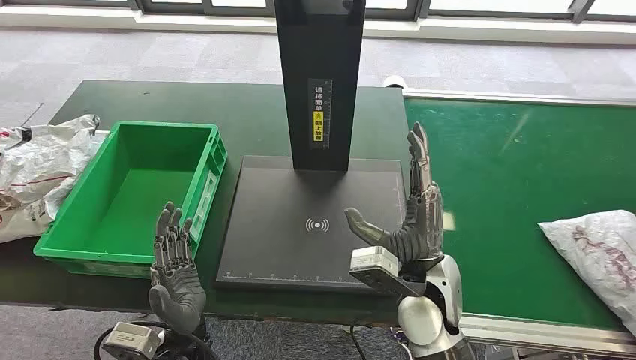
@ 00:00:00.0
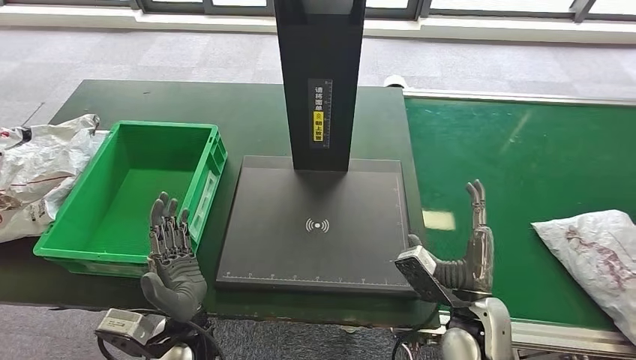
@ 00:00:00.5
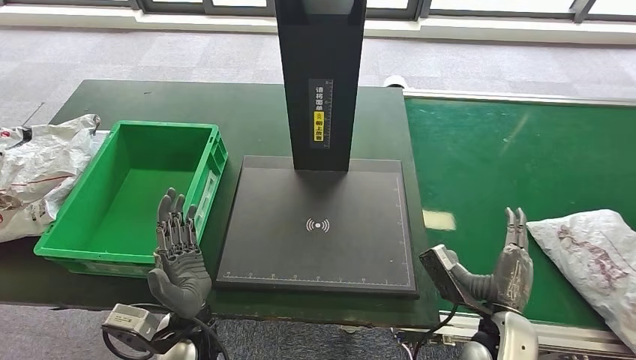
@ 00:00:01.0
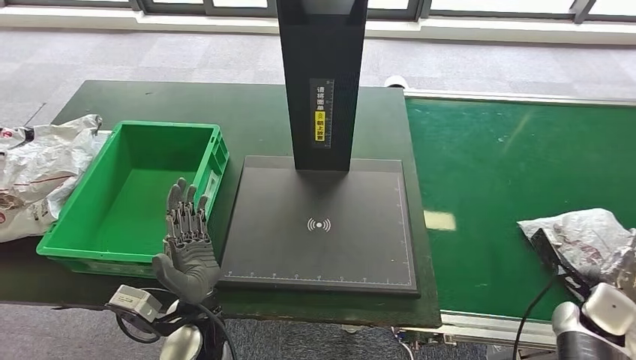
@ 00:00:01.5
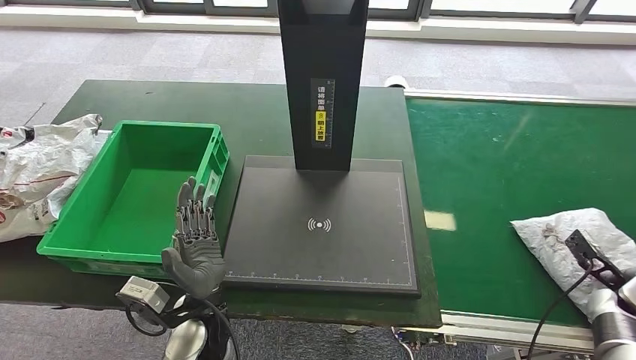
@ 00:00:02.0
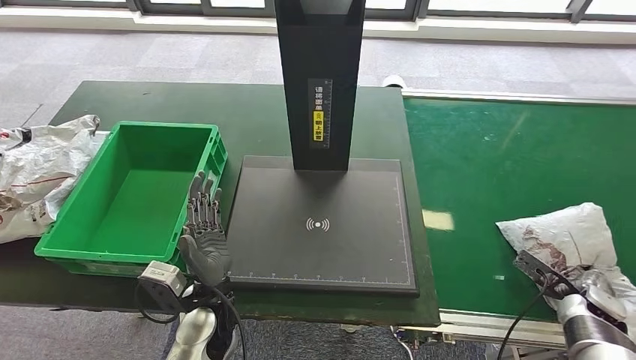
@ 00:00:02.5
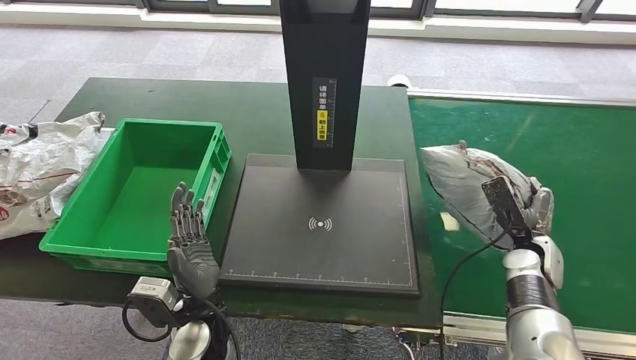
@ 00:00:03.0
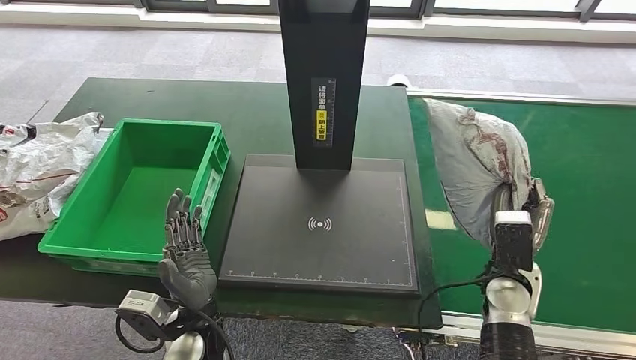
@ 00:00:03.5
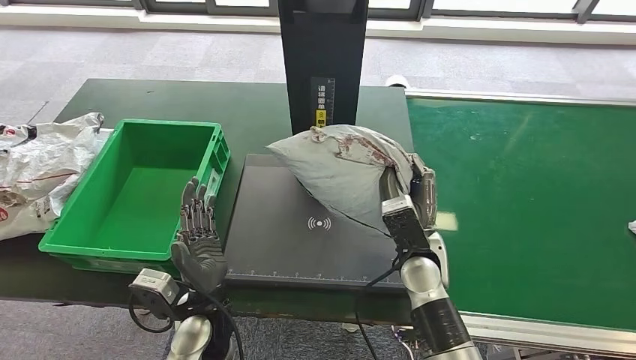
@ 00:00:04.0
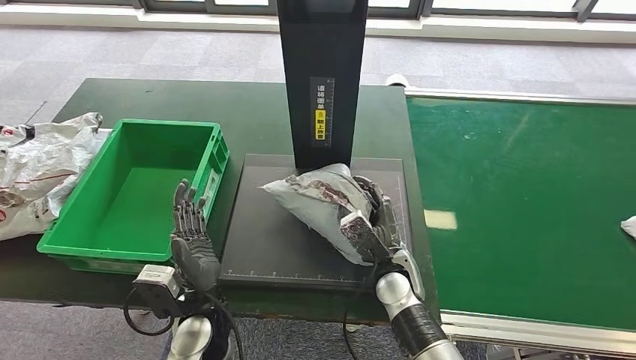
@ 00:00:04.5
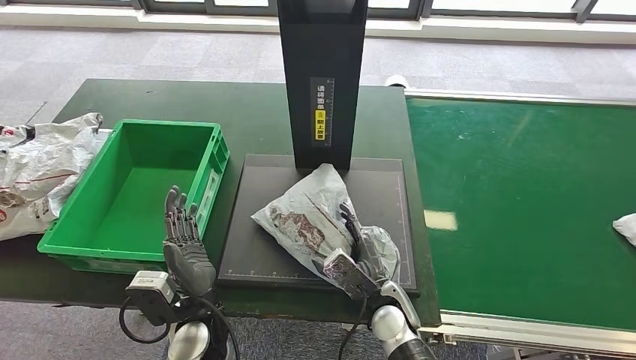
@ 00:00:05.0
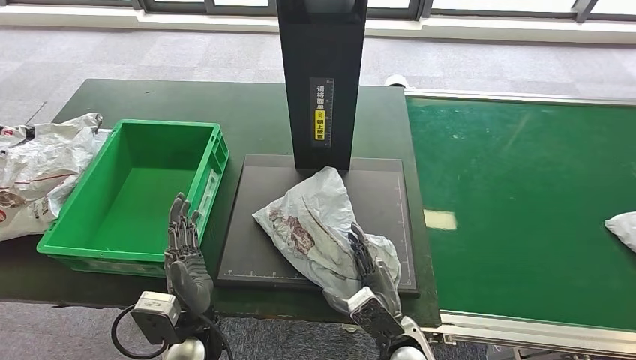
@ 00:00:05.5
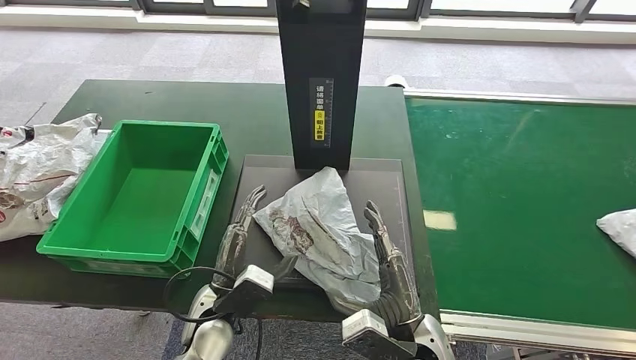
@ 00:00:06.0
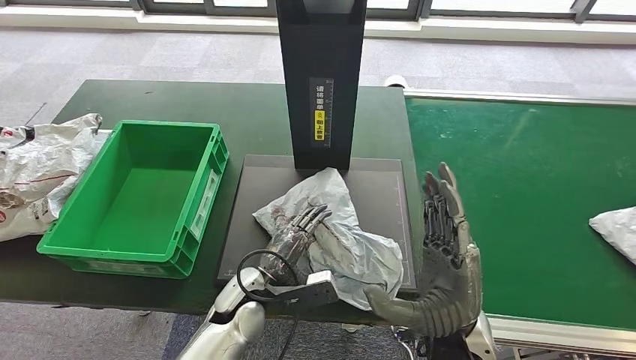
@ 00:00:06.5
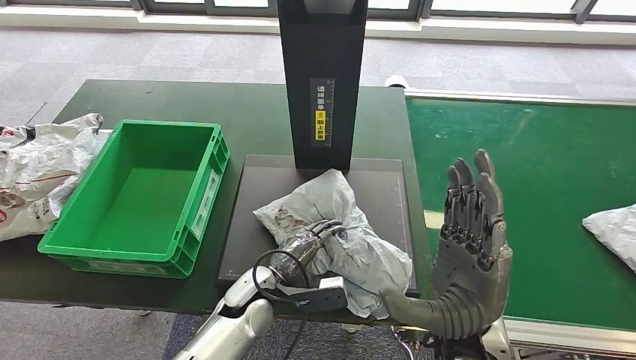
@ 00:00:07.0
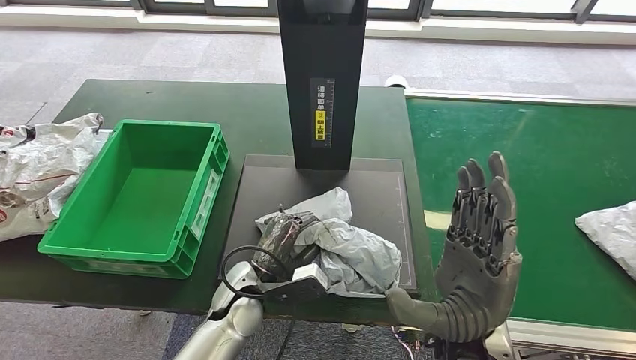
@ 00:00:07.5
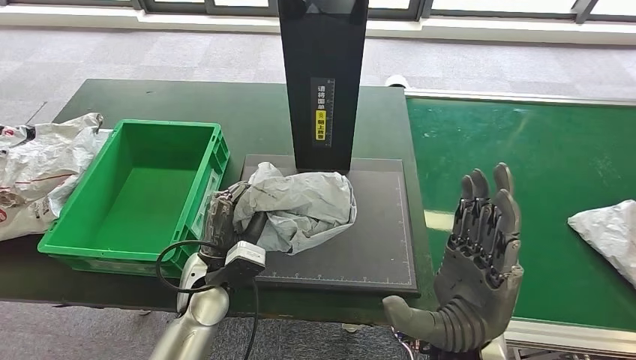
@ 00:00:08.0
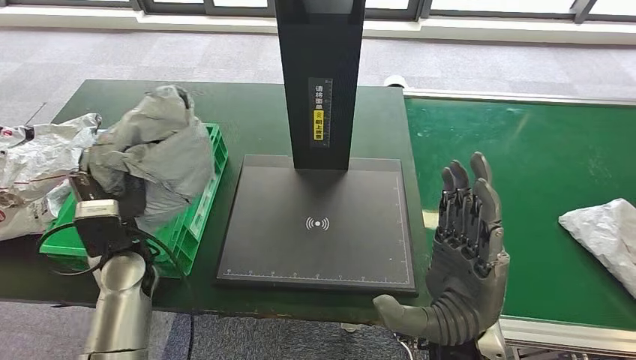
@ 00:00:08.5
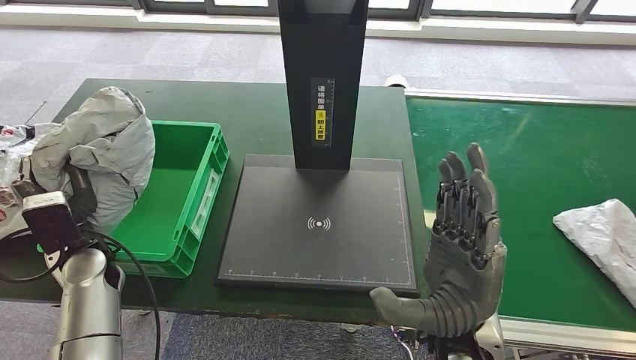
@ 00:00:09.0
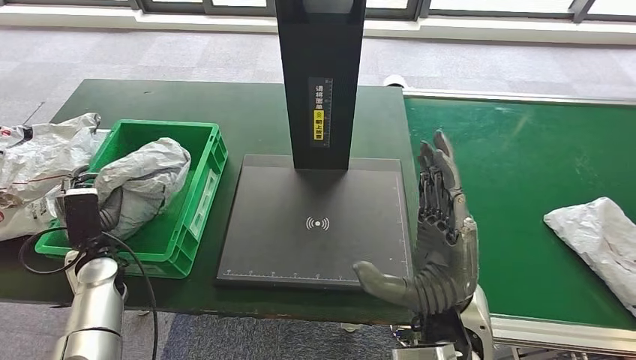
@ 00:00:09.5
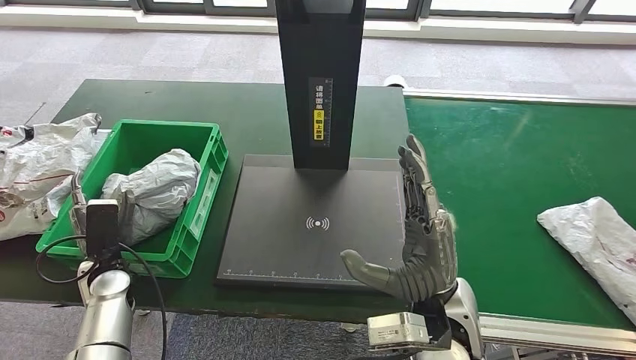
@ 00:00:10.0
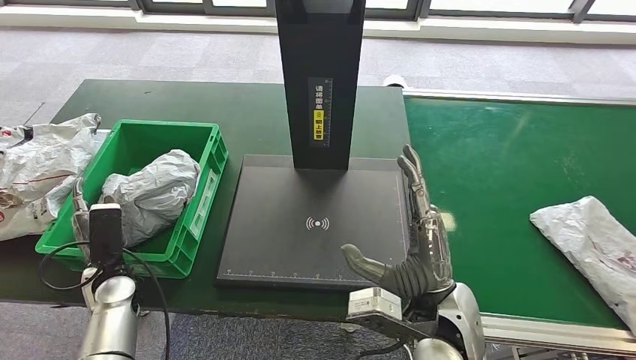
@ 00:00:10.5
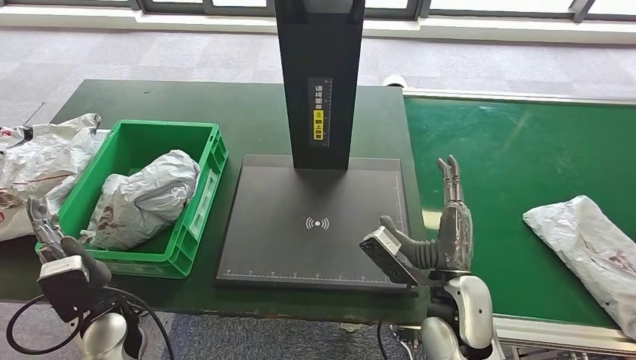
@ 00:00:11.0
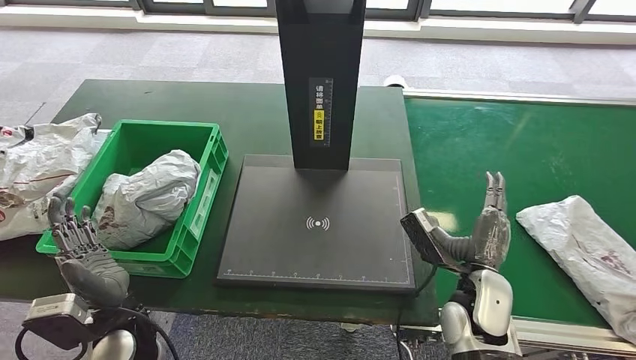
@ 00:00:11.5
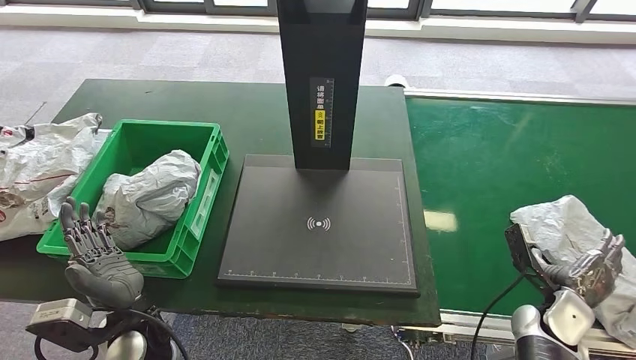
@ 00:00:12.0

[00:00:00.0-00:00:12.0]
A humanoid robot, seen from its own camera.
Step, 00:00:00.0 to 00:00:04.0: Take the parcel off the conveyor belt.
Step, 00:00:04.5 to 00:00:06.5: Place the parcel onto the inbound machine.
Step, 00:00:07.5 to 00:00:08.5: Pick up the parcel from the inbound machine.
Step, 00:00:09.0 to 00:00:11.0: Put the parcel inside the courier box.
00:00:02.0 to 00:00:04.0: The right hand travels to the left by some 35 cm.
00:00:04.0 to 00:00:06.0: The right hand moves backward, approximately 15 cm.
00:00:06.0 to 00:00:08.0: The right hand travels upward by about 10 cm, while the left hand shifts by about 5 cm.
00:00:10.0 to 00:00:12.0: The left hand is displaced to the right and backward by roughly 15 cm, while the right hand shifts some 30 cm to the right and downward.

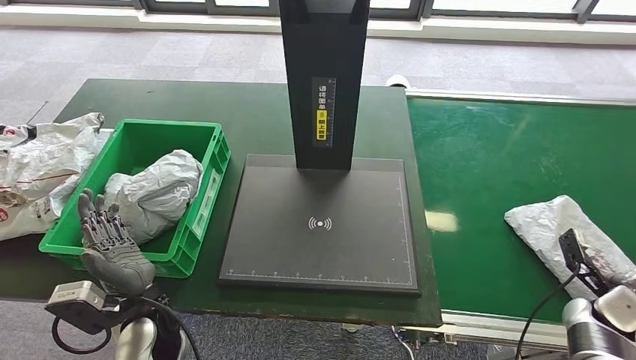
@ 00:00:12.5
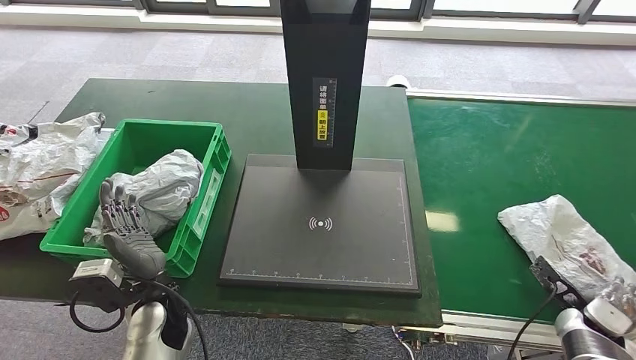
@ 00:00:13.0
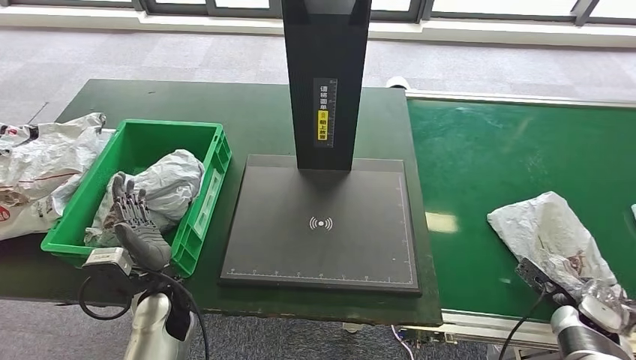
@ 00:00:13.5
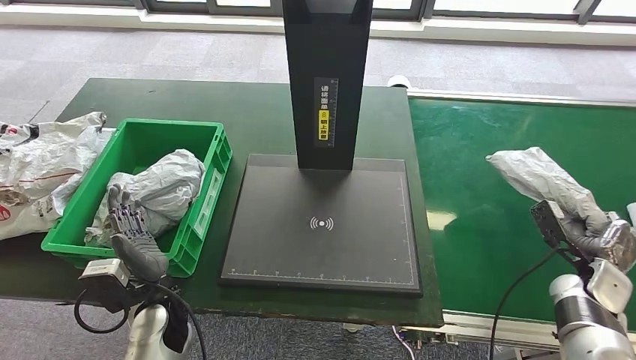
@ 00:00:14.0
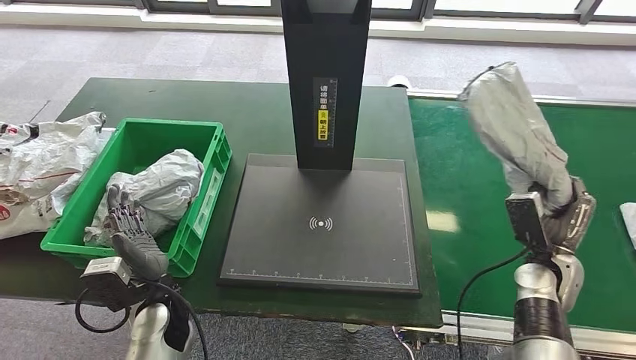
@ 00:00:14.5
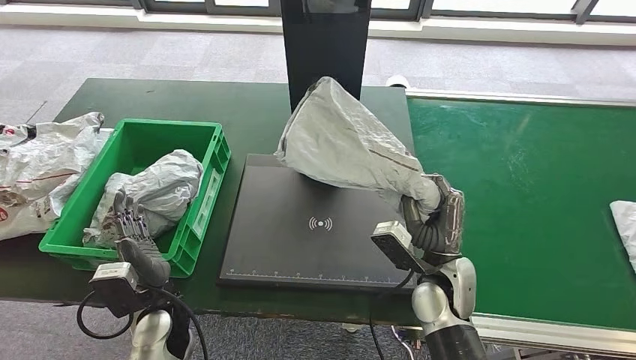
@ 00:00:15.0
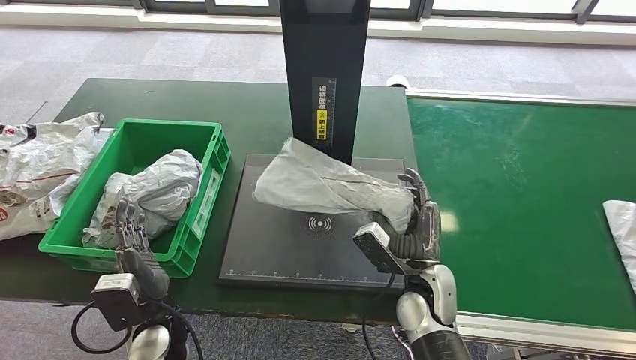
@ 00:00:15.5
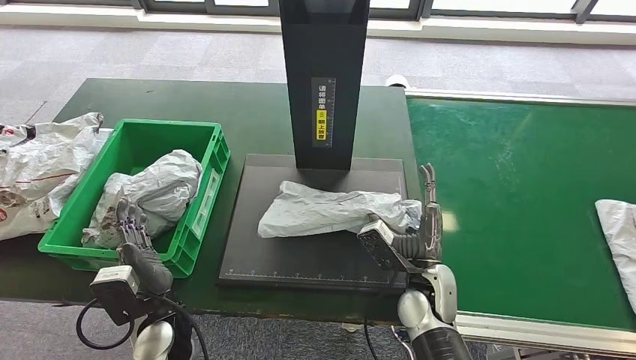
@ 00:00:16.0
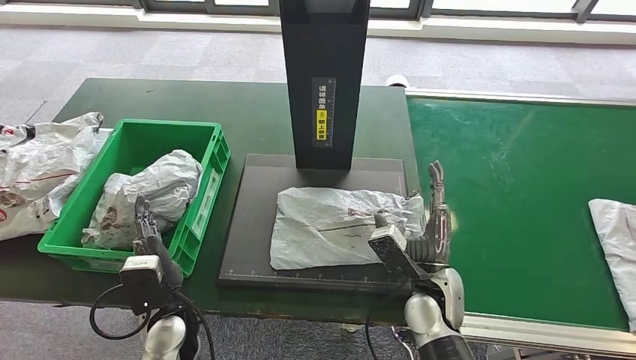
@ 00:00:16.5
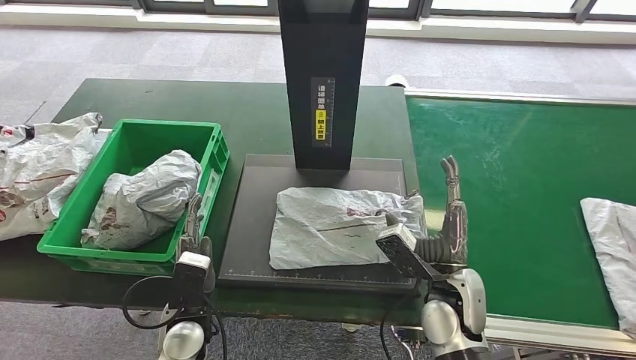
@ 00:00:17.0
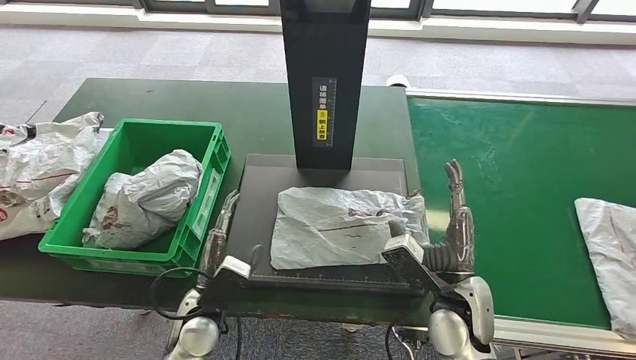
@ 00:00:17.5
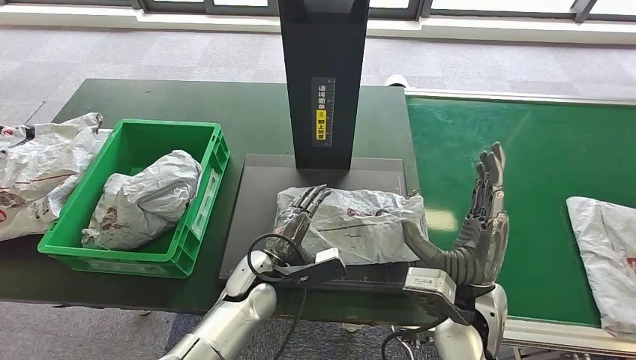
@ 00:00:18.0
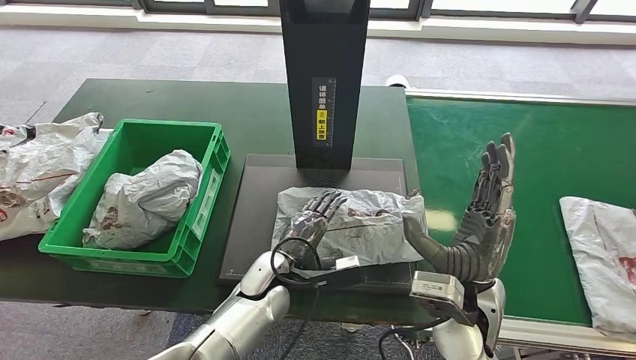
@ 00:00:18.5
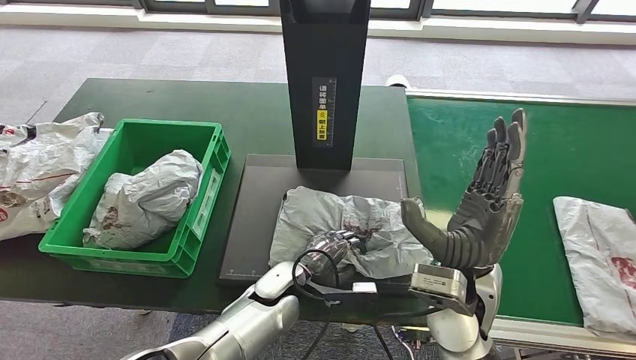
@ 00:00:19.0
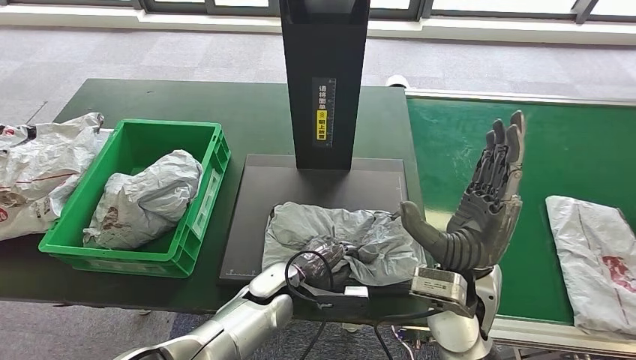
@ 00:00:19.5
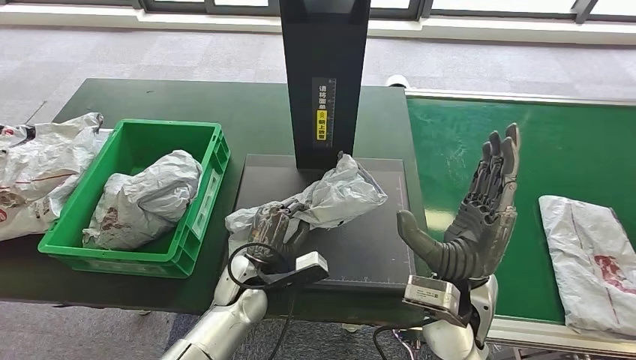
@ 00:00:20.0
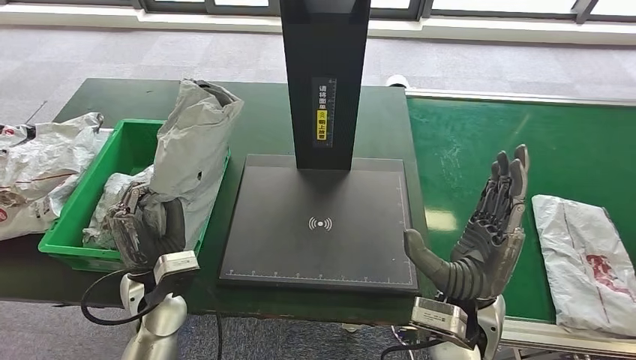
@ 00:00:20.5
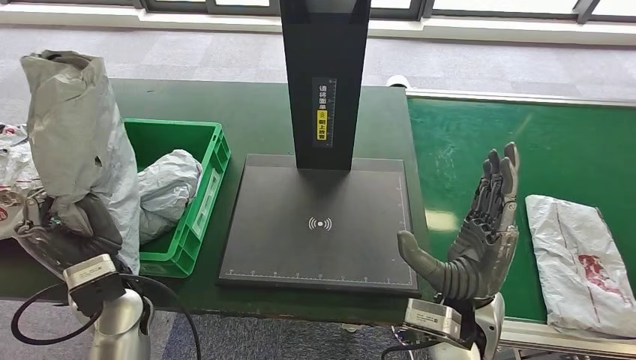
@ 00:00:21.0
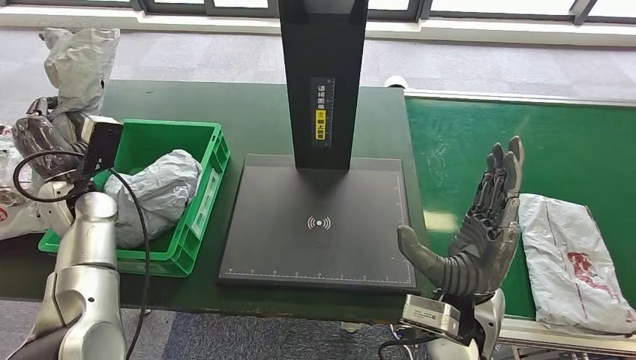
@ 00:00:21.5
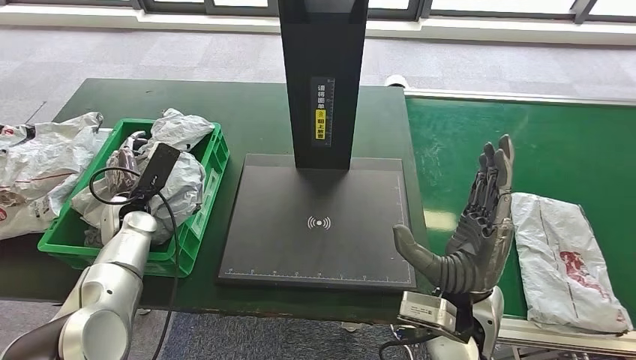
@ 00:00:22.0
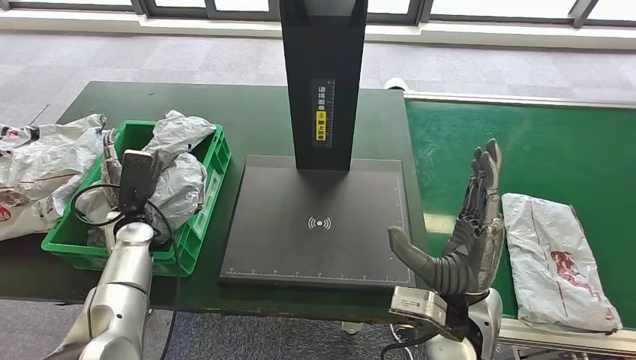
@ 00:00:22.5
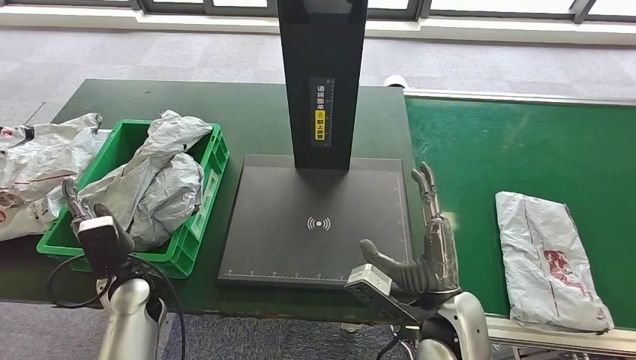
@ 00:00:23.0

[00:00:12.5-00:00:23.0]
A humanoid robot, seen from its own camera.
Step, 00:00:13.0 to 00:00:14.5: Pick up the parcel from the conveyor belt.
Step, 00:00:15.0 to 00:00:16.5: Place the parcel onto the inbound machine.
Step, 00:00:17.0 to 00:00:21.0: Pick up the parcel from the inbound machine.
00:00:12.5 to 00:00:14.5: The right hand shifts some 10 cm to the left.
00:00:16.5 to 00:00:19.0: The left hand is displaced to the right by approximately 15 cm. Meanwhile the right hand moves upward, approximately 10 cm.
